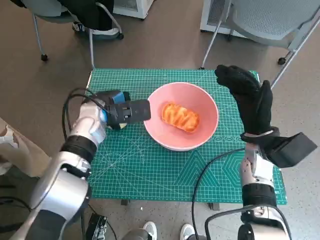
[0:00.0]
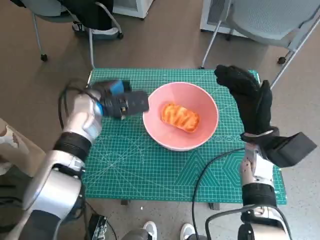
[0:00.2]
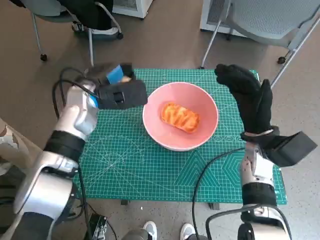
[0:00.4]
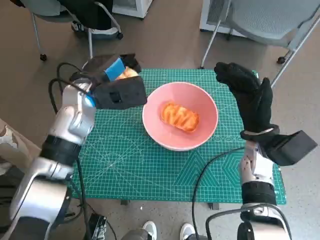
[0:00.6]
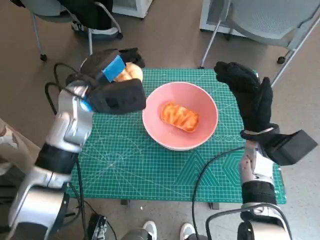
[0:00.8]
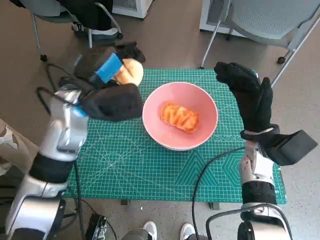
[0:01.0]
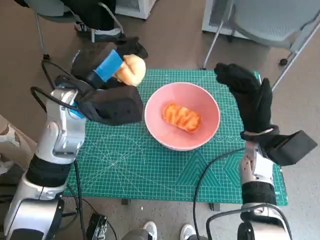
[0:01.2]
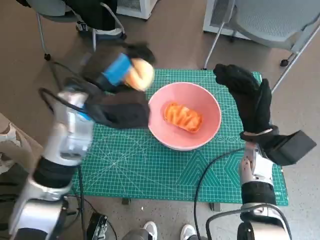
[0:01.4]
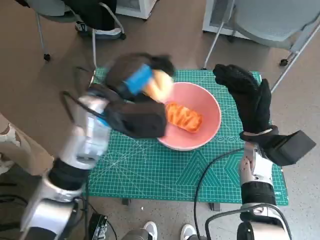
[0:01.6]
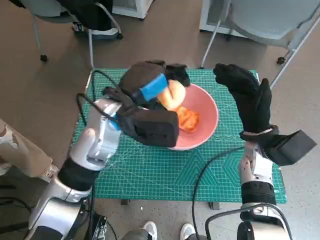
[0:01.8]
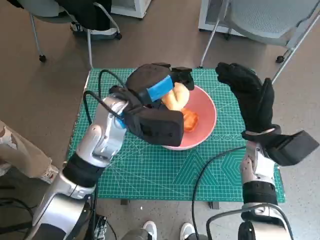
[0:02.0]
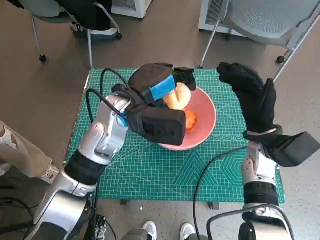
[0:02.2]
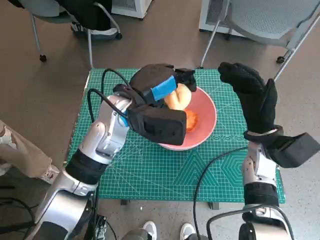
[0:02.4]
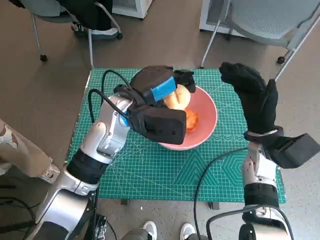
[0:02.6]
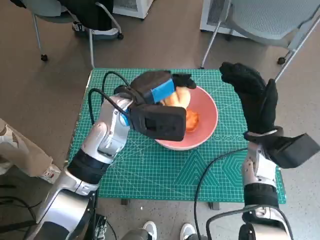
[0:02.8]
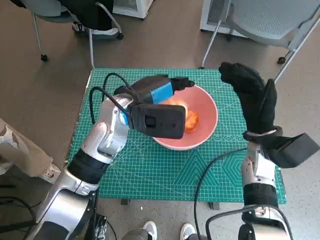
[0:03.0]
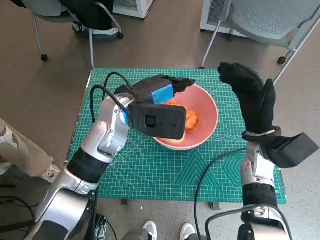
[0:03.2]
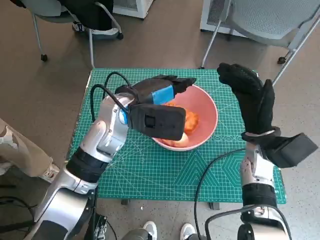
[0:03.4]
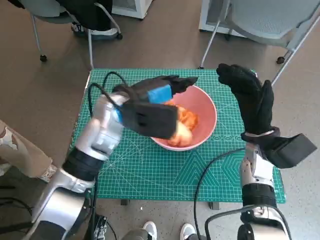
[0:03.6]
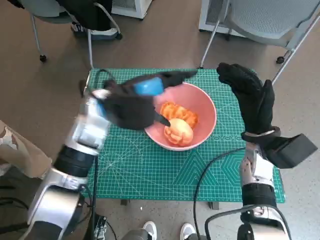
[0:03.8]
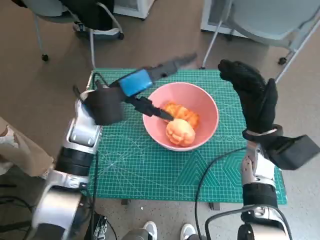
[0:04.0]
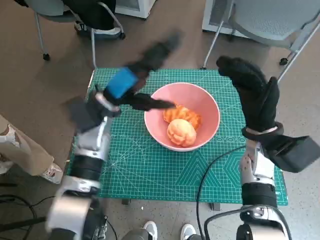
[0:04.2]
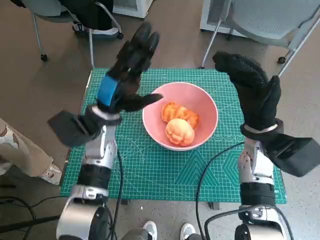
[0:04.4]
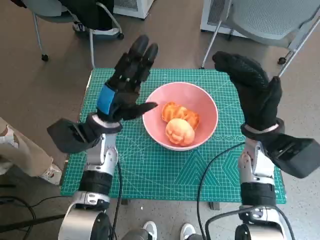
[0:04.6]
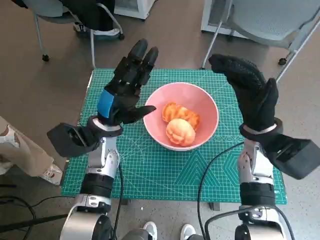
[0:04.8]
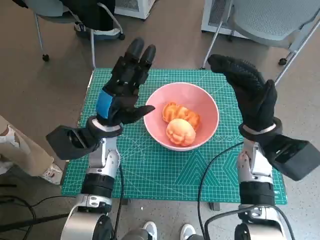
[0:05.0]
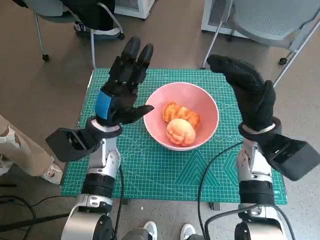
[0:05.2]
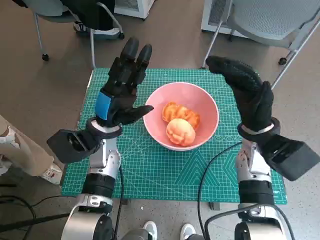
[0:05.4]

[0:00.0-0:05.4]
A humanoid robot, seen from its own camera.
Step, 0:00.0 to 0:03.4: Place the round bread in pink bowl with left hand.
0:00.0 to 0:01.4: The left hand shifts some 10 cm upward and backward.
0:01.4 to 0:02.8: The left hand heads to the right, covering approximately 5 cm.
0:02.8 to 0:04.0: The left hand heads to the left, covering some 5 cm.
0:04.0 to 0:05.4: The left hand goes approximately 10 cm downward.

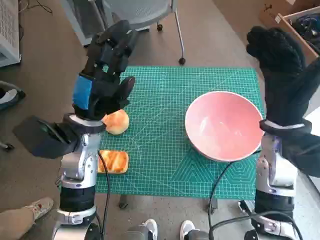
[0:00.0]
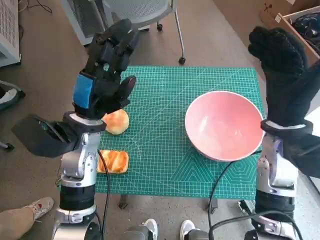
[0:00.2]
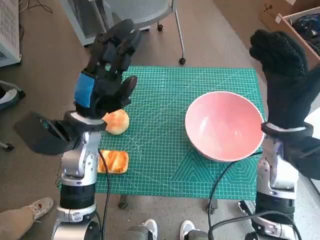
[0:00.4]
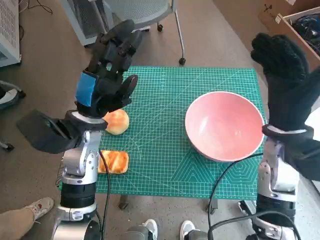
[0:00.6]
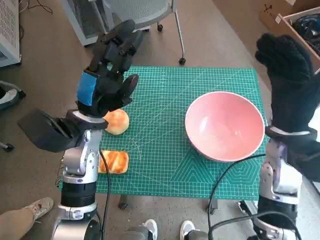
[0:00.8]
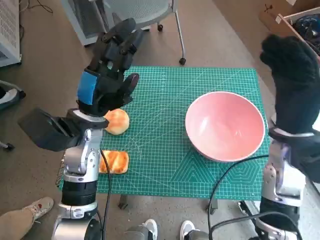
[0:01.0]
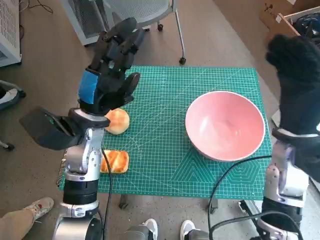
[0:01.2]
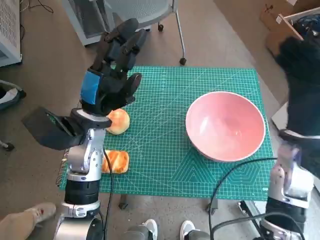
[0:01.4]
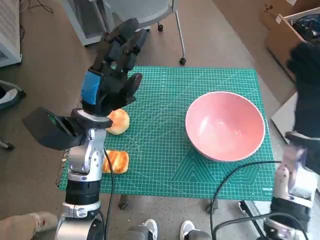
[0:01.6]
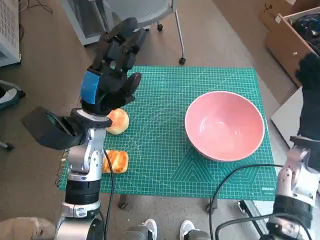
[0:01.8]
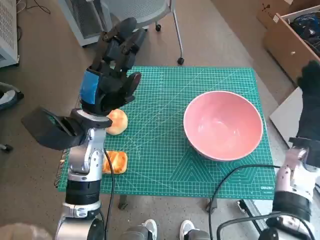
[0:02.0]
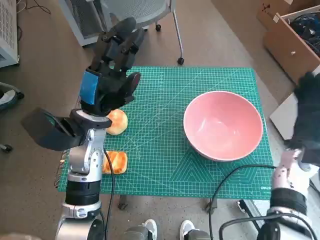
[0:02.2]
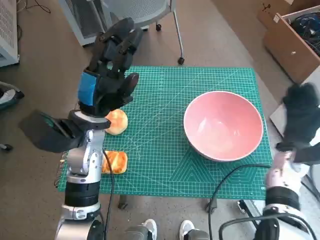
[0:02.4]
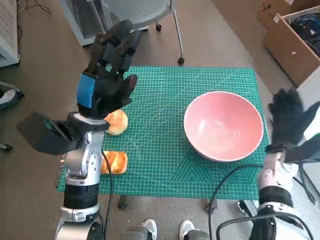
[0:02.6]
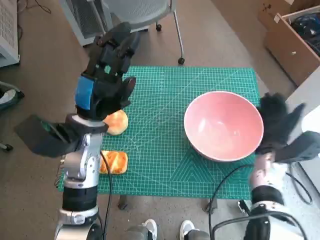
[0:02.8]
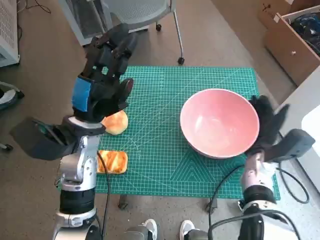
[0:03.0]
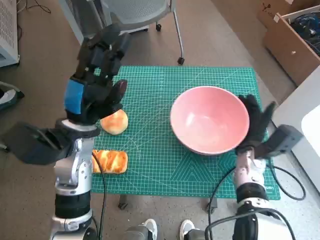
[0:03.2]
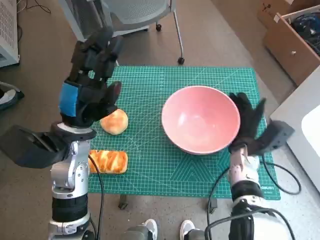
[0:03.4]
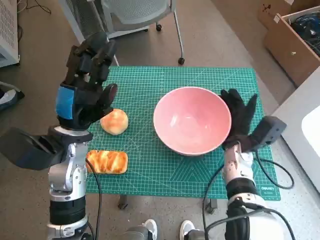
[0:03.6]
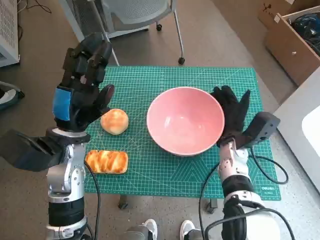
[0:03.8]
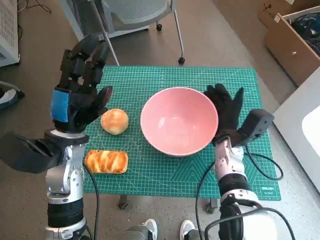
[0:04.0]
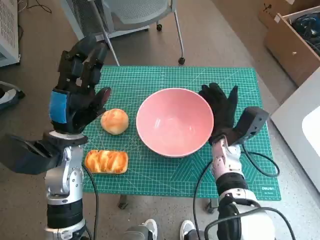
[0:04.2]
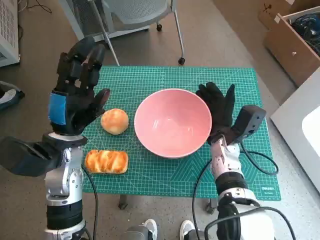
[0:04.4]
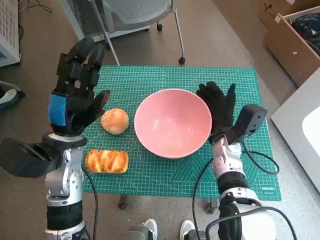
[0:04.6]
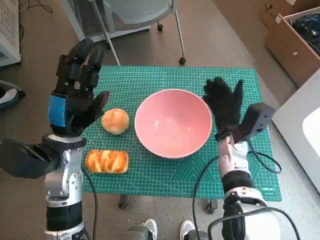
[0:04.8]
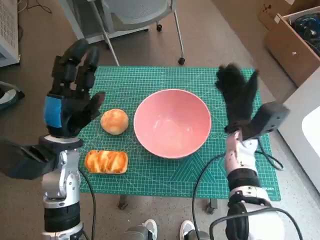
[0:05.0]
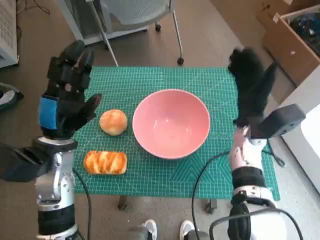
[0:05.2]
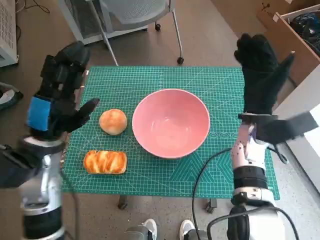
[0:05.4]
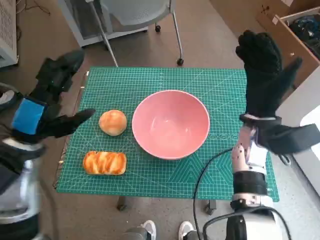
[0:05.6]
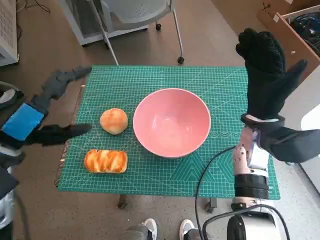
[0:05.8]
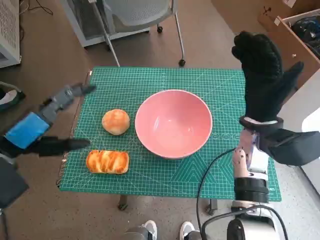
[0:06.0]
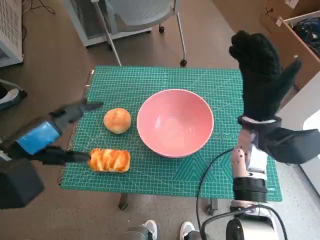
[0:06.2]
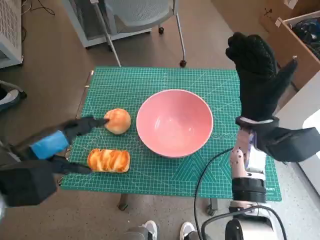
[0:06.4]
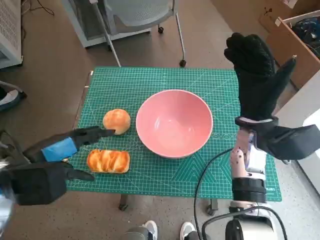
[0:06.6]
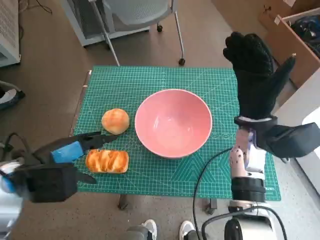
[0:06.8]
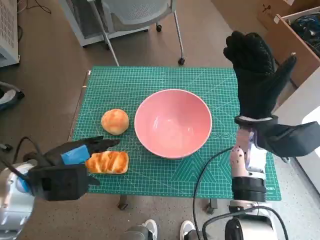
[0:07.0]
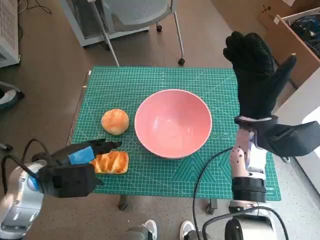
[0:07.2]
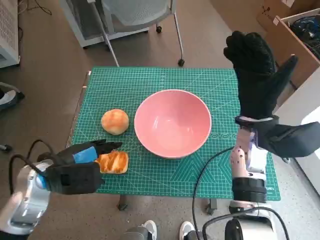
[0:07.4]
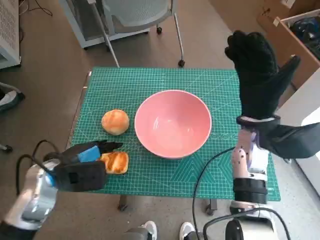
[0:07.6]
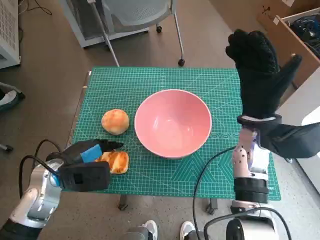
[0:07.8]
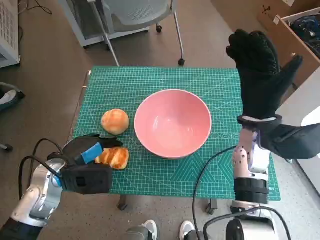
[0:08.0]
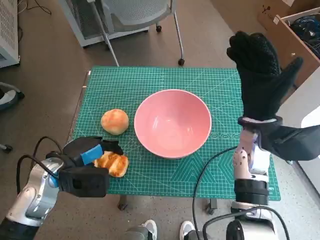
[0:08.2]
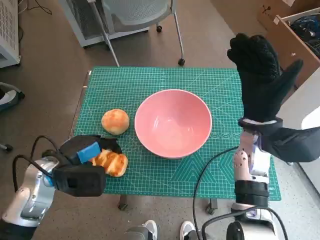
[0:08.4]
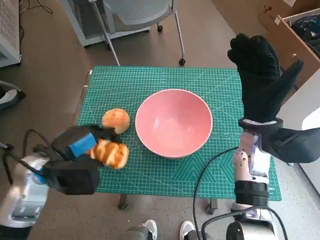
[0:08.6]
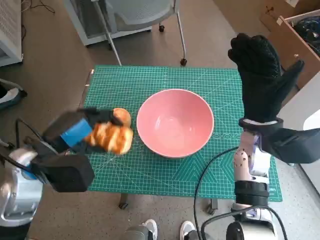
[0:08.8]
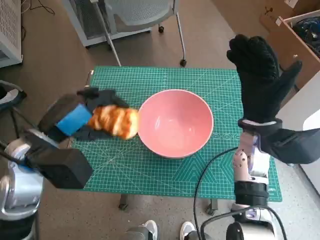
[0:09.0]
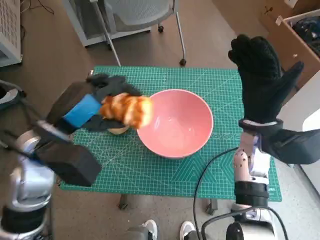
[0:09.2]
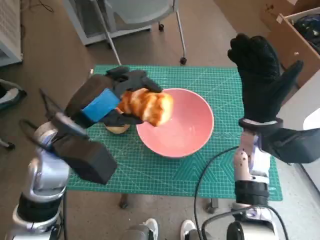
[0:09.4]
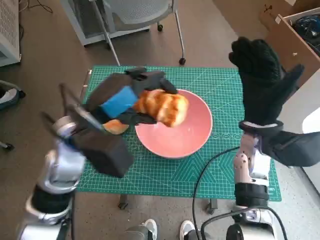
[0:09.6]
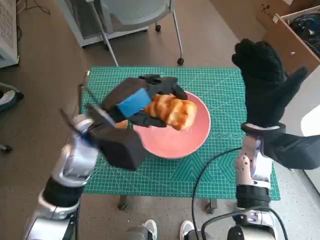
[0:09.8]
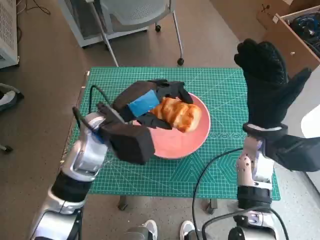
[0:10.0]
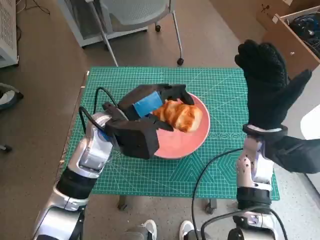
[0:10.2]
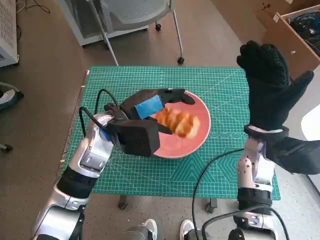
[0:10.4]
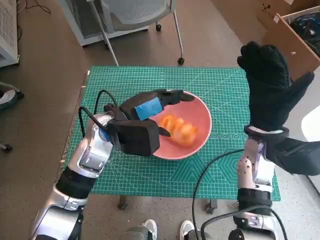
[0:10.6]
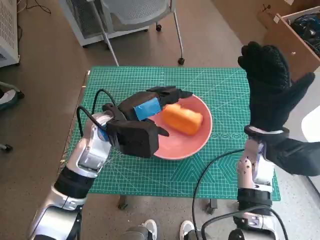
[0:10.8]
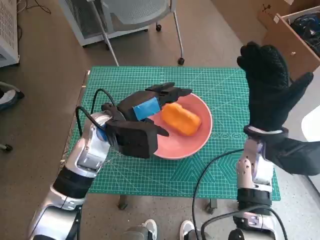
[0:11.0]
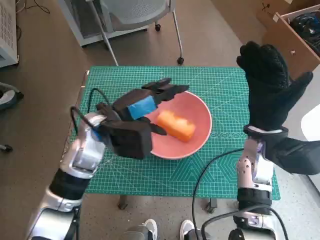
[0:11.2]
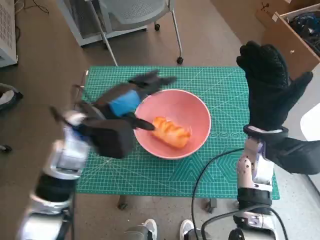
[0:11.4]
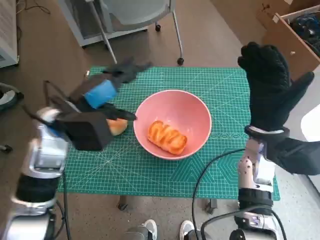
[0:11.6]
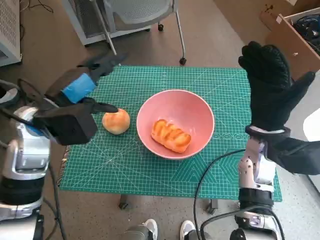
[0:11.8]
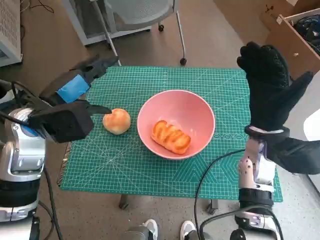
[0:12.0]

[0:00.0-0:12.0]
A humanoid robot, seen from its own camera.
Step, 0:00.0 to 0:04.6: Move the pink bowl to the center of table with right hand.
Step, 0:04.8 to 0:07.8: Grasp the long bread with left hand.
Step, 0:08.0 to 0:10.8: Place the long bread in pink bowl with left hand.
0:01.6 to 0:03.0: The right hand shifts approximately 10 cm downward.
0:03.0 to 0:04.4: The right hand moves to the left, roughly 10 cm.
0:04.4 to 0:06.0: The right hand heads upward, covering approximately 10 cm. Meanwhile the left hand shifts approximately 10 cm to the left, upward and backward.
0:06.0 to 0:07.6: The left hand is displaced downward by some 10 cm.
0:07.6 to 0:09.0: The left hand shifts some 10 cm upward.
0:09.0 to 0:10.4: The left hand shifts about 15 cm to the right and forward.
0:10.4 to 0:12.0: The left hand is displaced to the left by roughly 10 cm.

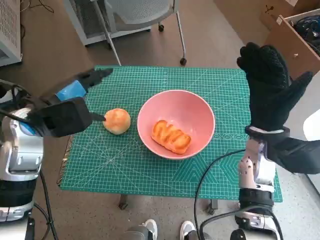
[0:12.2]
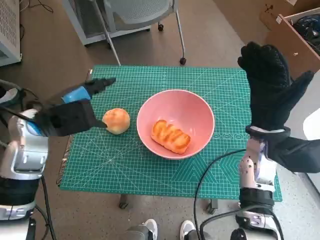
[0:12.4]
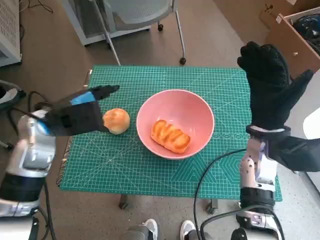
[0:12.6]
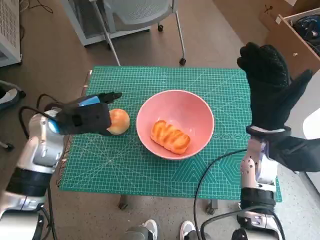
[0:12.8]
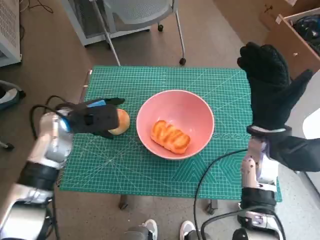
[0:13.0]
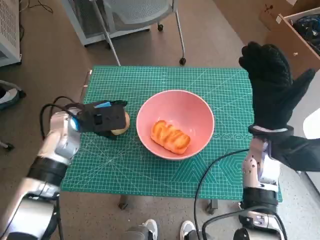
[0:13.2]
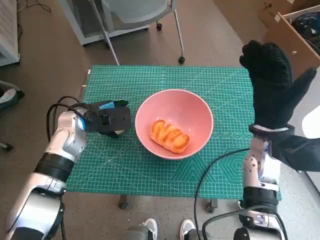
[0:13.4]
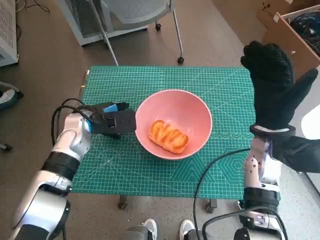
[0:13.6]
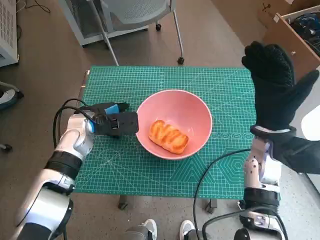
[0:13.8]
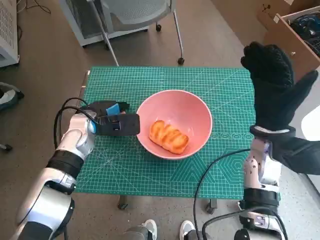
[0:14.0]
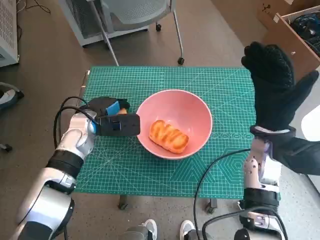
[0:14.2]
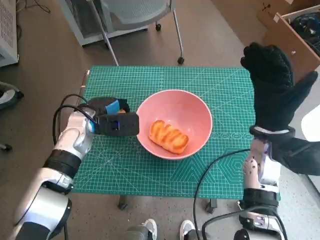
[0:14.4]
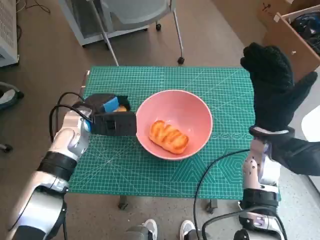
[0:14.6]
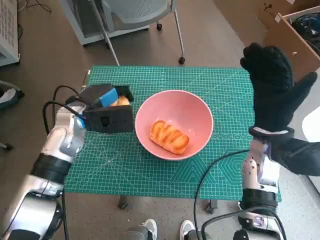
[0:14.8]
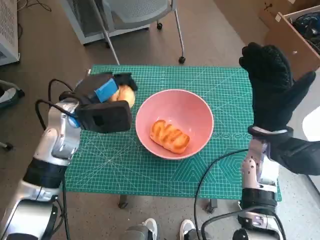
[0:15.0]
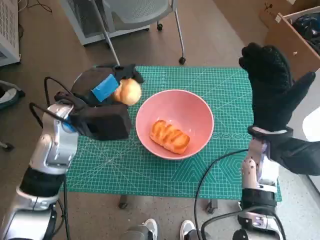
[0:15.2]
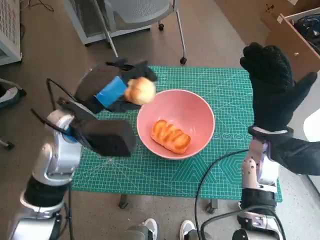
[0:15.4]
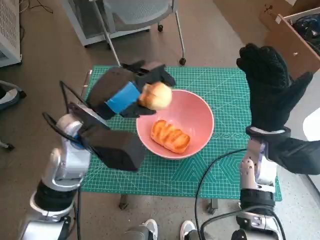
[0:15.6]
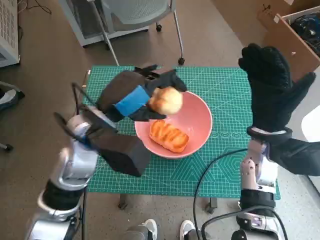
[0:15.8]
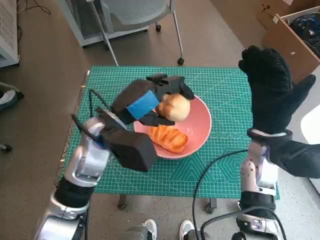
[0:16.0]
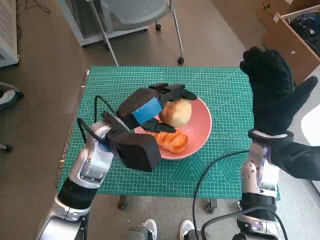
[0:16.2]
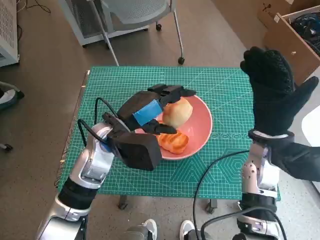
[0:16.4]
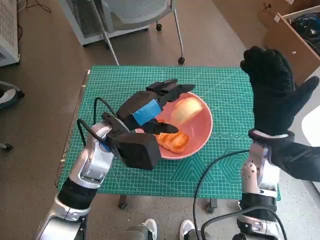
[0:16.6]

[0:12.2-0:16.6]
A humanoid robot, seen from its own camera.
Step, 0:12.2 to 0:14.0: Grasp the round bread with left hand.
0:12.2 to 0:13.6: The left hand heads downward and forward, covering some 10 cm.
0:13.6 to 0:15.2: The left hand heads upward, covering approximately 10 cm.
0:15.2 to 0:16.6: The left hand is displaced to the right by about 5 cm.
